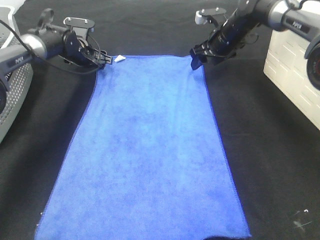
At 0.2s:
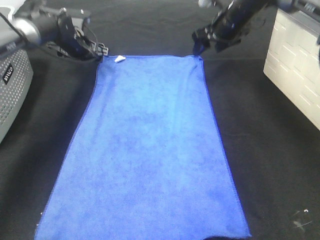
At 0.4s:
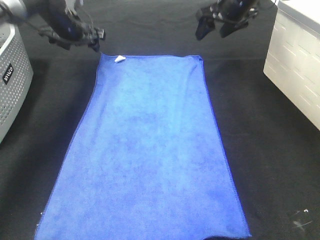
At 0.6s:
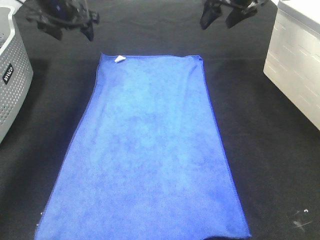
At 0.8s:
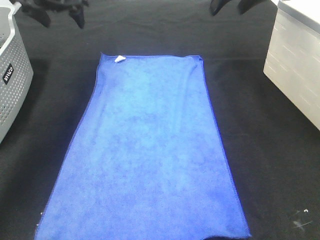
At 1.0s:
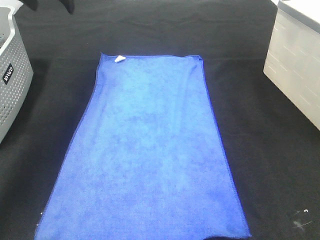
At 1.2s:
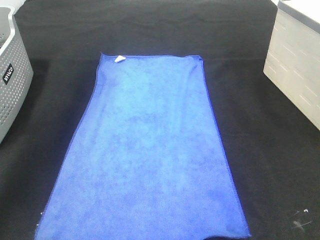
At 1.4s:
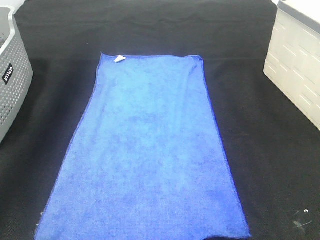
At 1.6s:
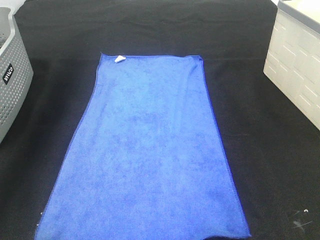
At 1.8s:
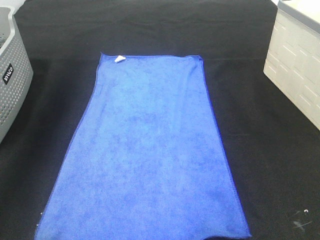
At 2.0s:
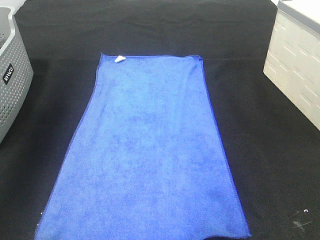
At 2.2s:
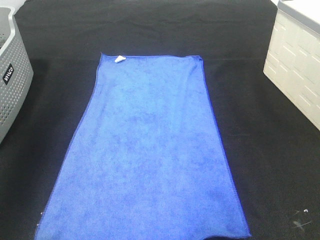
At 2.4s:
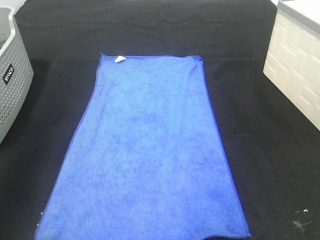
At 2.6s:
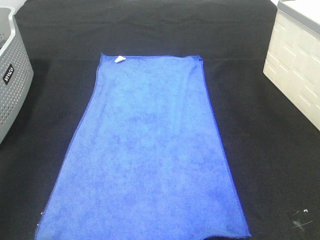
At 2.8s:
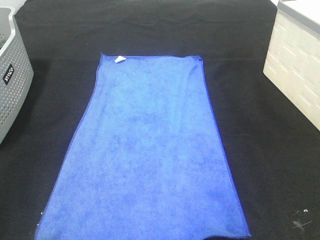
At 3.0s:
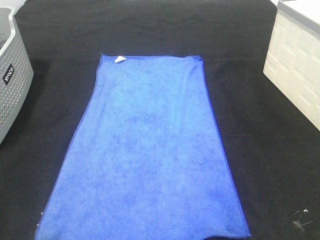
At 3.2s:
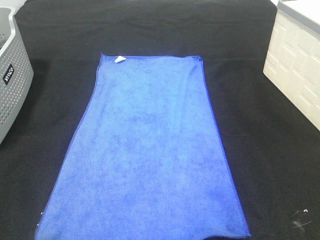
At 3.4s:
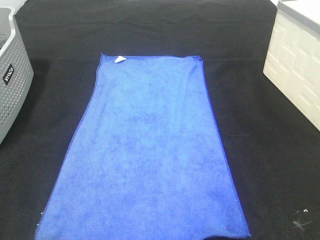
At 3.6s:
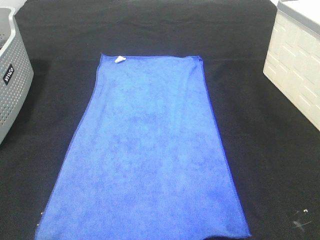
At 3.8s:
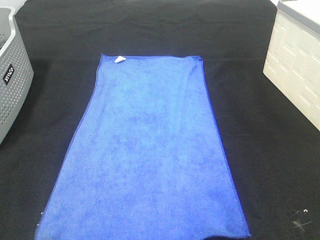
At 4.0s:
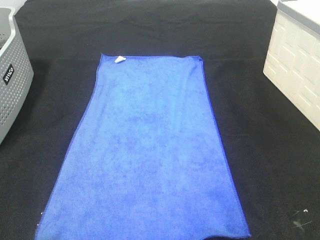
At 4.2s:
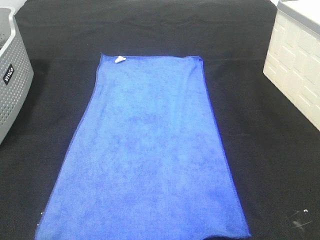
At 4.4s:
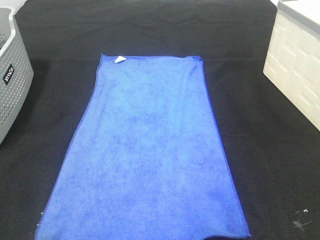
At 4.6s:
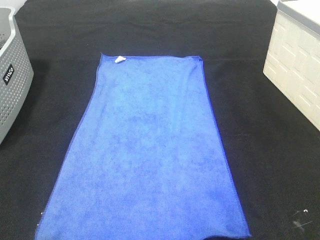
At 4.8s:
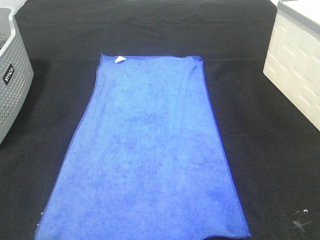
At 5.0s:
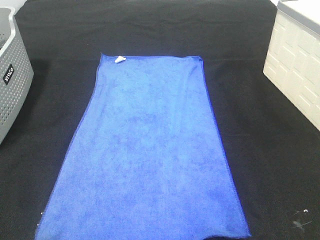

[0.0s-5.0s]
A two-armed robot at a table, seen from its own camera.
Task of the whole recording: Remove the towel and place it.
0.0s to 1.6s: The two grippers go roughly 30 cm upward and backward.
1.6s to 3.4s: Both grippers move backward, about 50 cm.

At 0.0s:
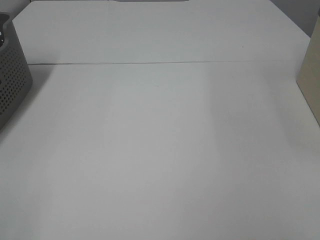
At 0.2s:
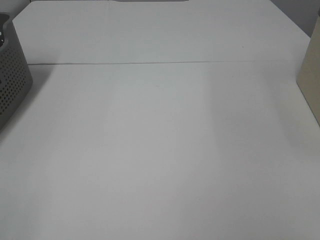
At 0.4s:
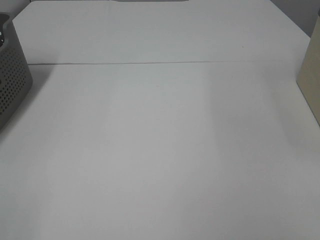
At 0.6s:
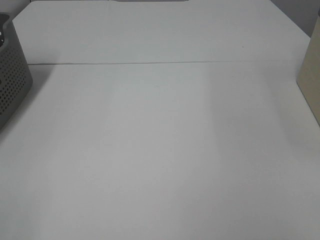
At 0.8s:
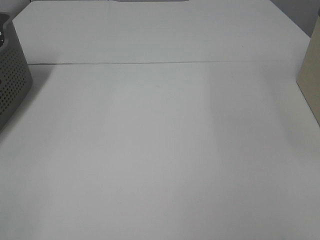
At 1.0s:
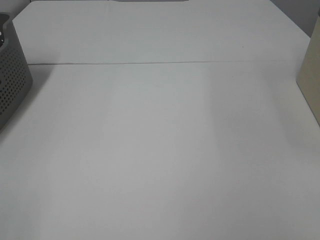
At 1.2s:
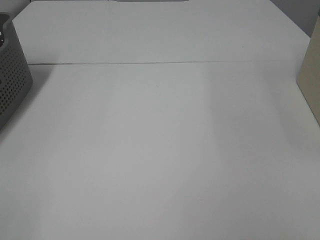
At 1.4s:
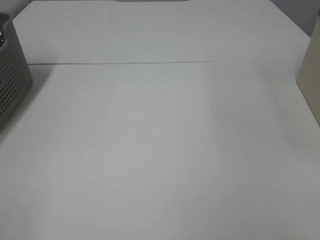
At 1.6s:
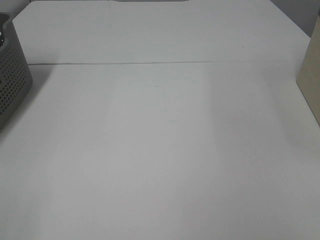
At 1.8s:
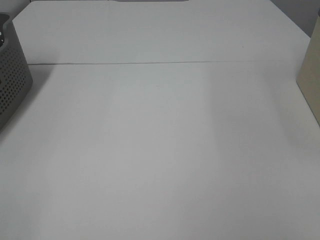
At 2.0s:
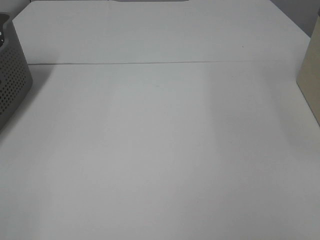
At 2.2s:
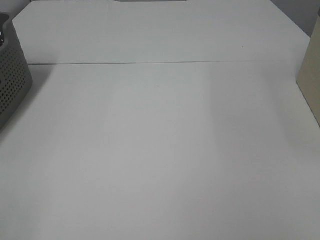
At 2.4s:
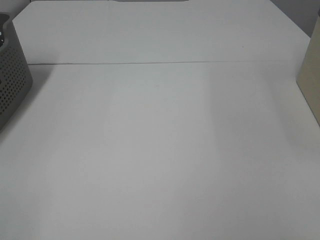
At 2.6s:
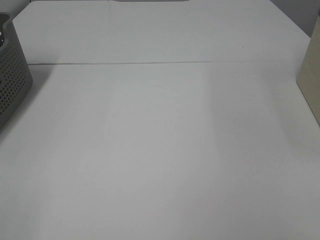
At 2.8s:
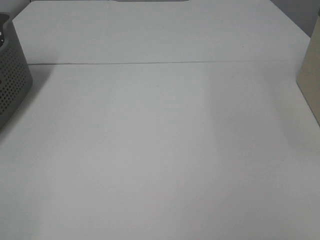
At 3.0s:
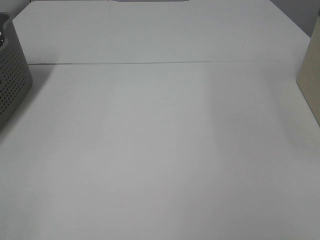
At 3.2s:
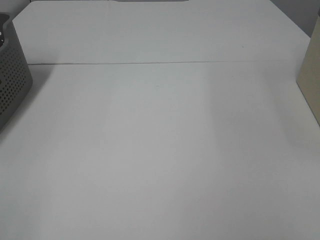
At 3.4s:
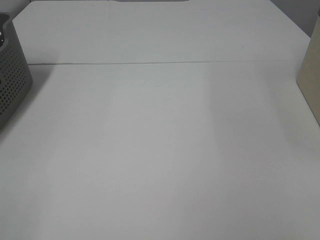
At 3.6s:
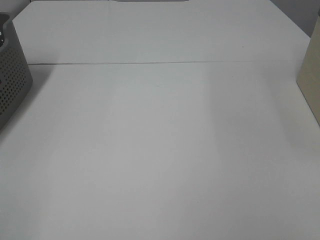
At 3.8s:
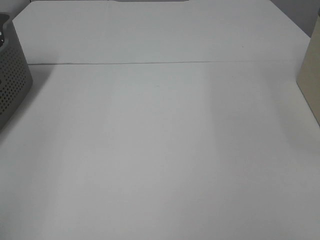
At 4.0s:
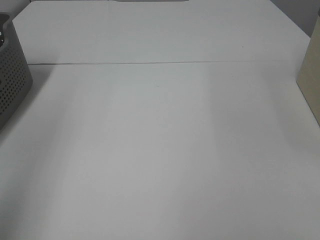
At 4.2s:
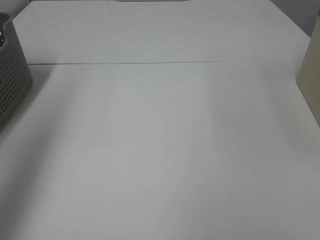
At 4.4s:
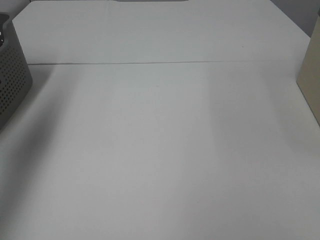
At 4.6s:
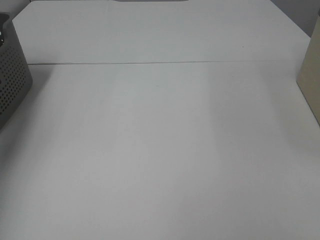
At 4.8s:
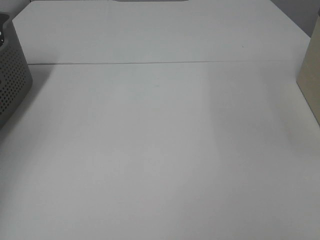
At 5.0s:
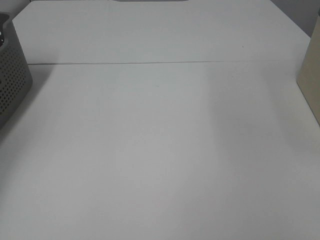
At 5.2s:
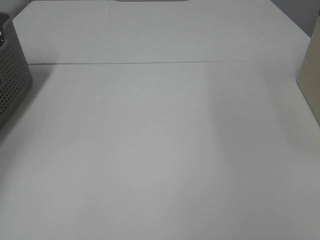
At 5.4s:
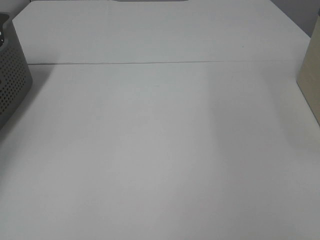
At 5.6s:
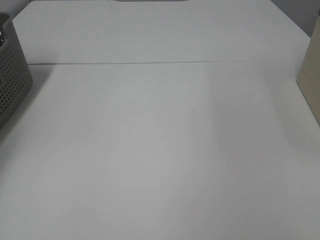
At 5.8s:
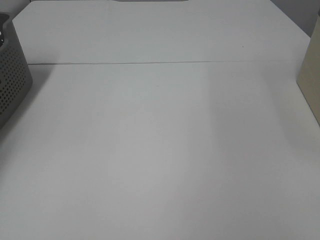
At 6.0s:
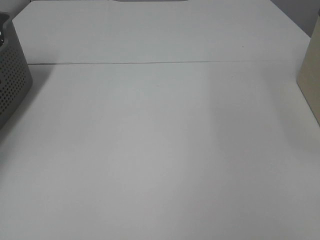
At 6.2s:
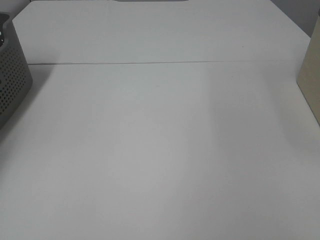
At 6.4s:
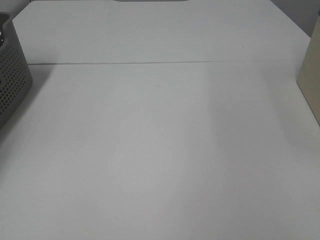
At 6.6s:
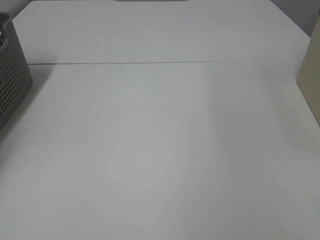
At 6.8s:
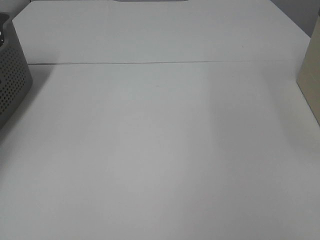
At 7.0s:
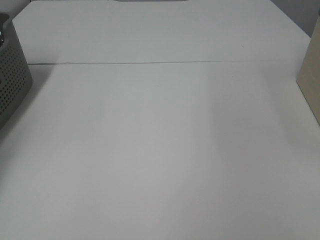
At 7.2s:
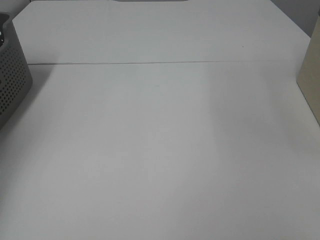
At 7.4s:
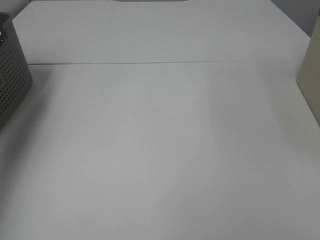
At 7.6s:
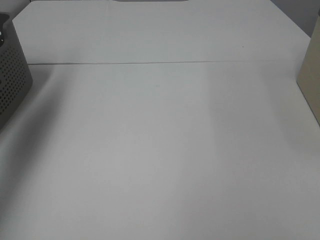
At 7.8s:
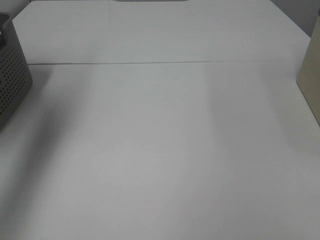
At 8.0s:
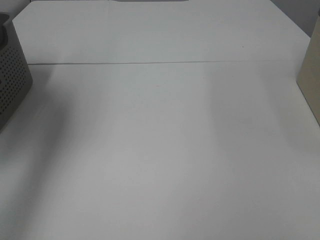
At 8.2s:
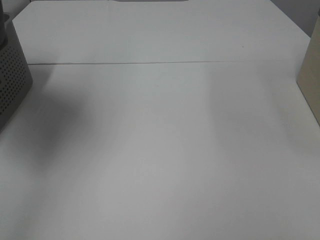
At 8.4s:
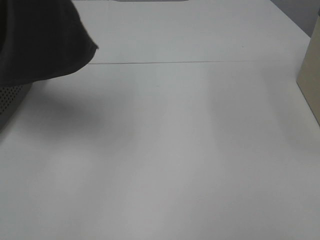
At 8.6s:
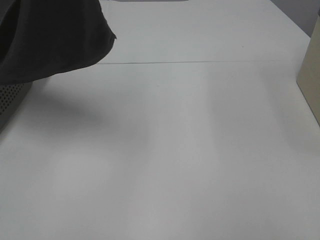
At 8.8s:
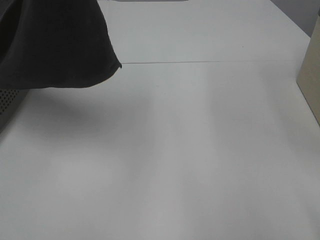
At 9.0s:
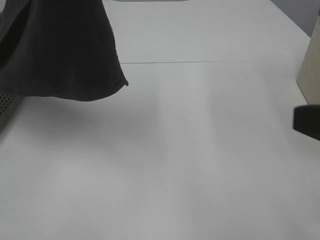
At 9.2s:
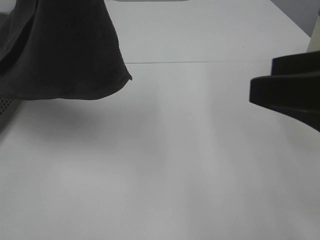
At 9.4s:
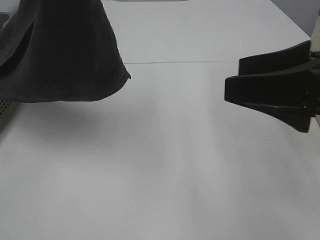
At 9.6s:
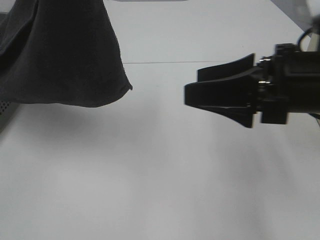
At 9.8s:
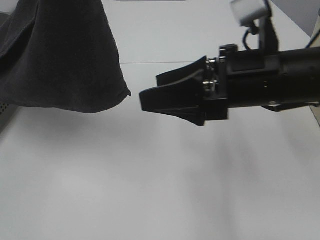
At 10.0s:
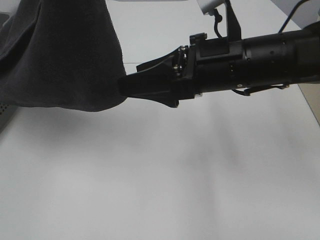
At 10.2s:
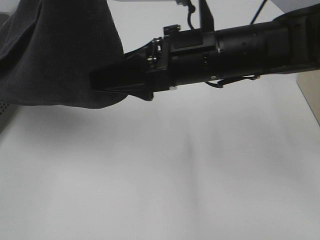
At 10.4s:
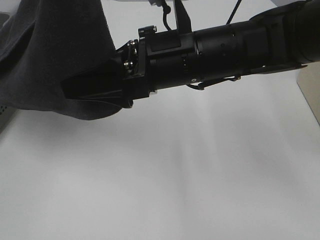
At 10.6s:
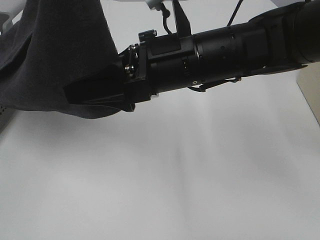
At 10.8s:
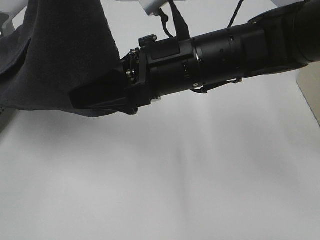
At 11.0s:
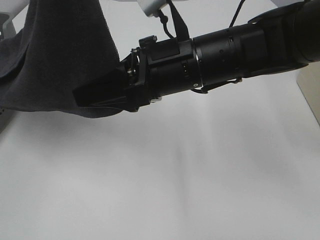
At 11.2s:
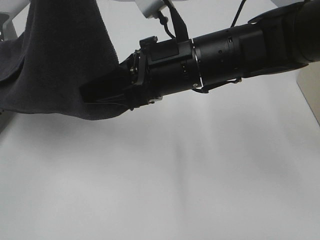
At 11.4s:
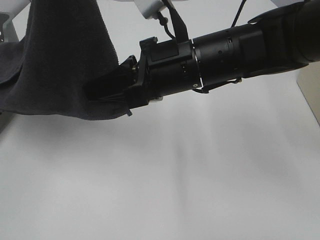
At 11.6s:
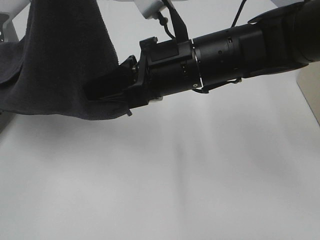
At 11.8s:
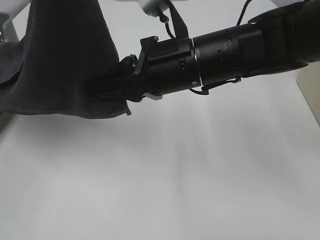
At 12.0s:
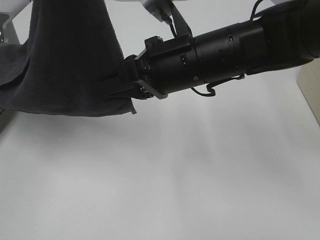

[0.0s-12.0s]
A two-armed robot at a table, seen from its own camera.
Task of the whole recording: Remove the towel and place it.
0.0s to 3.0s: Both grippers stay put.
3.0s to 4.4s: The left gripper travels forward and upward by about 35 cm.
4.4s to 6.0s: The left gripper goes about 30 cm downward, to the left and forward.
6.0s to 7.6s: The left gripper goes approximately 25 cm upward and to the right, and closes its fingers.
7.6s to 9.0s: The right gripper is displaced forward by some 10 cm. The left gripper moves to the right and backward, some 25 cm.
9.0s to 10.4s: The right gripper travels to the left and forward by roughly 25 cm.
10.4s to 12.0s: The right gripper closes up.

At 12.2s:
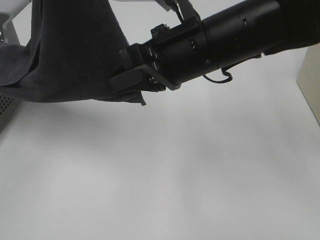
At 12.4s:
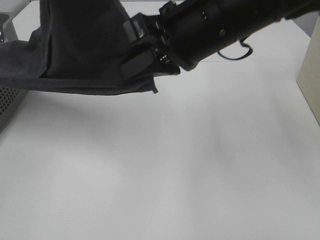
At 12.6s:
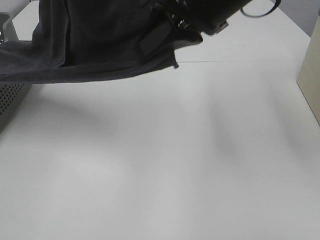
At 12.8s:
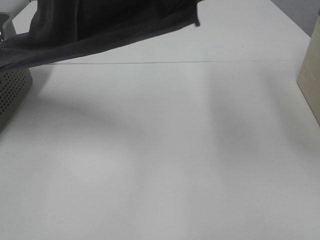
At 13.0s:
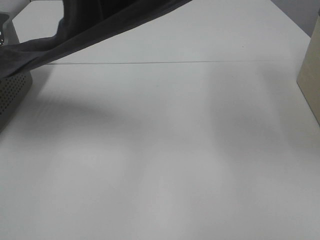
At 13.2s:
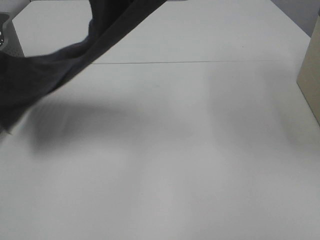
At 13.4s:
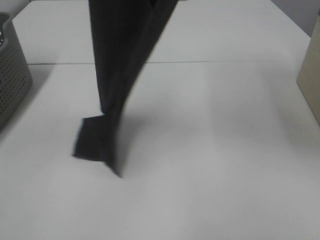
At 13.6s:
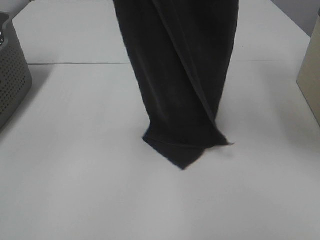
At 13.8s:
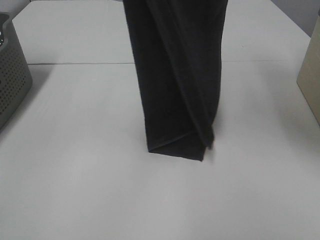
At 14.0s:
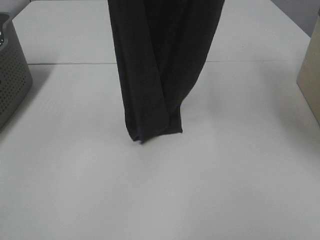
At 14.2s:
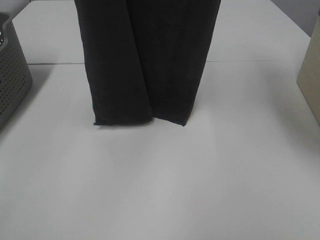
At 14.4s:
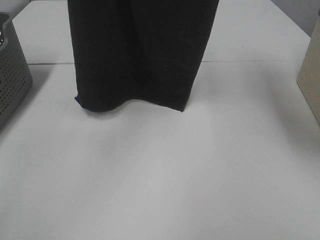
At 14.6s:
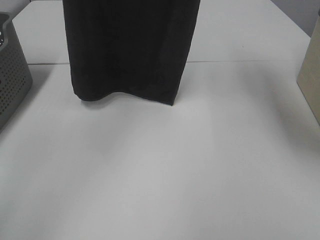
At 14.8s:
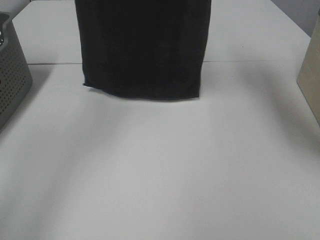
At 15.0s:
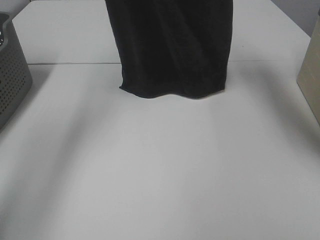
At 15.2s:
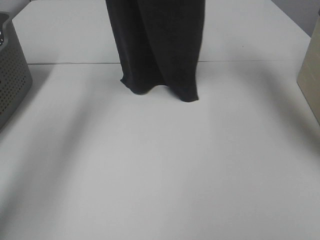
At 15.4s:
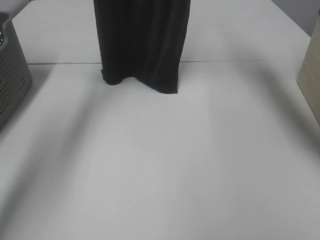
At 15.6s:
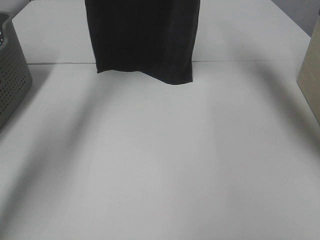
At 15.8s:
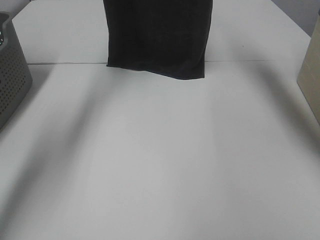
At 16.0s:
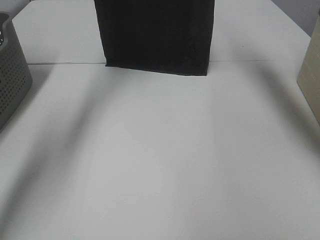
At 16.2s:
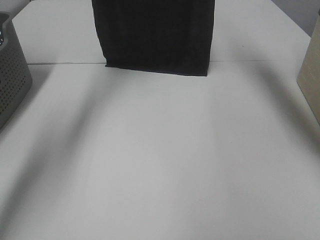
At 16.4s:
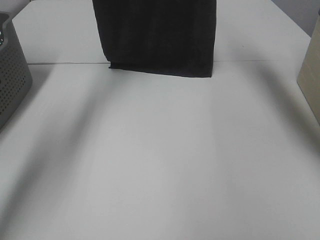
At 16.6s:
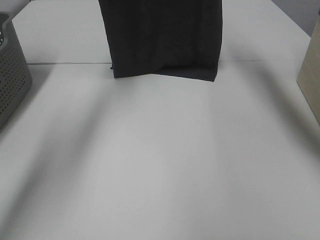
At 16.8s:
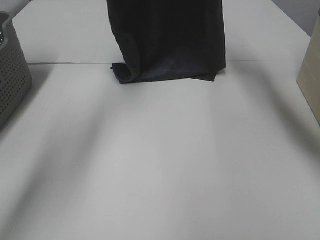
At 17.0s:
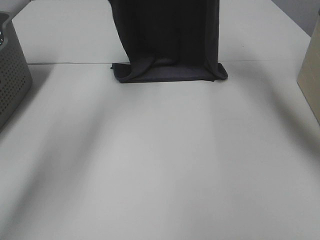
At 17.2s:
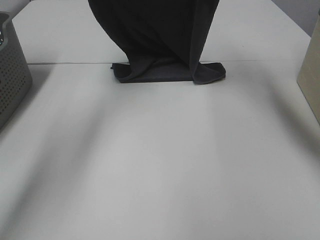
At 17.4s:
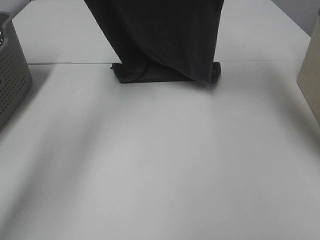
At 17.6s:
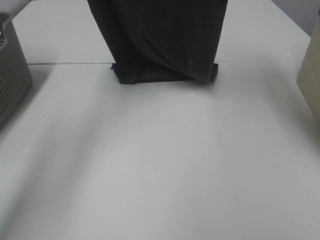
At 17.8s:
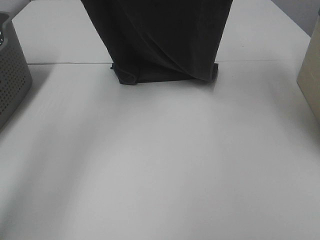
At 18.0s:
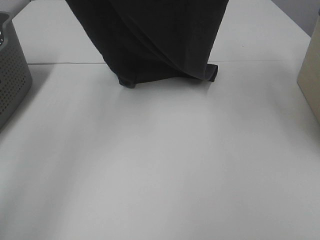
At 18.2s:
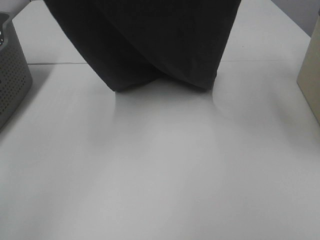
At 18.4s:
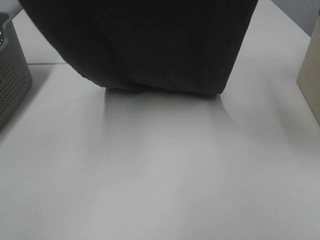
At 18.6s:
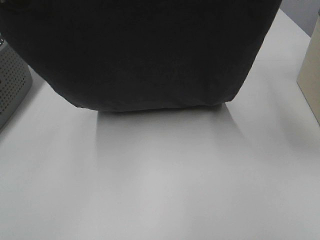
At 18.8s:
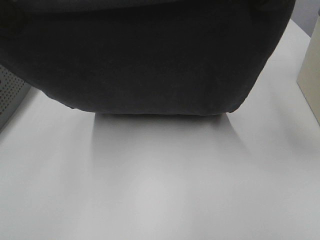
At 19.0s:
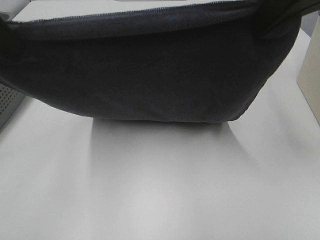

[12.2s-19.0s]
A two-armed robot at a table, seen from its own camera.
Task of the whole recording: Remove the towel and place it.
Step, 13.4s to 18.4s: Left hand: spread the grey towel flat on the table.
Step, 13.4s to 18.4s: Right hand: spread the grey towel flat on the table.
12.2s to 13.6s: The left gripper ends up about 5 cm from where it was; the right gripper is displaced upward by some 25 cm.
13.6s to 15.0s: The grippers both shift forward by approximately 15 cm.
15.0s to 16.2s: The grippers both shift forward by roughly 5 cm.
16.2s to 17.6s: The grippers both shift backward by approximately 5 cm. The left gripper travels downward and back again, some 10 cm each way.
17.6s to 19.0s: The two grippers go roughly 20 cm backward.
